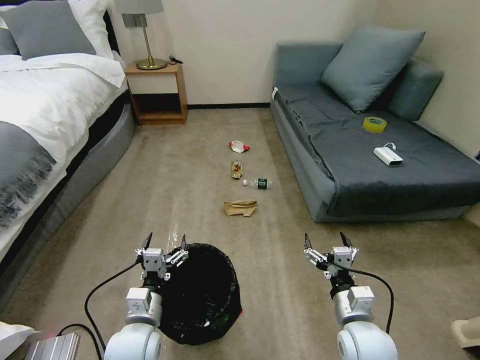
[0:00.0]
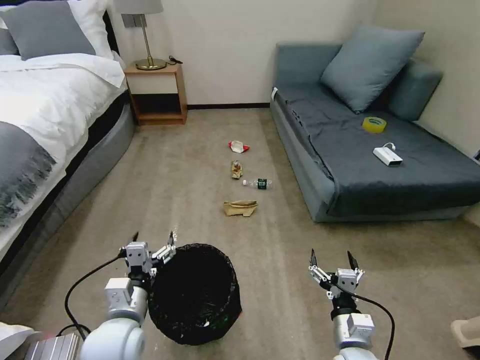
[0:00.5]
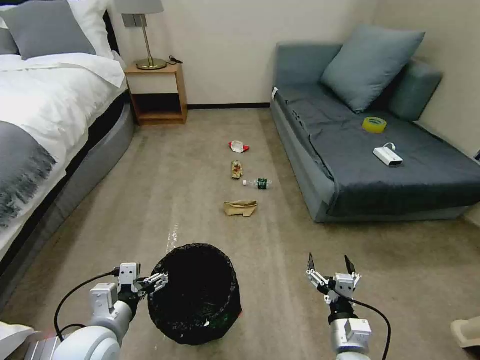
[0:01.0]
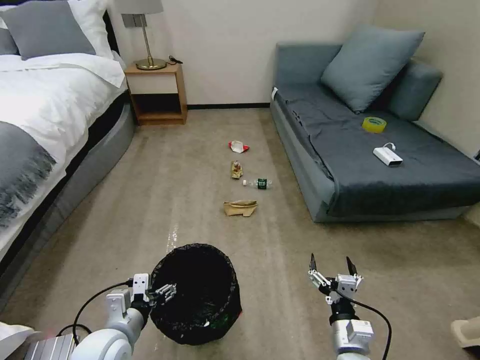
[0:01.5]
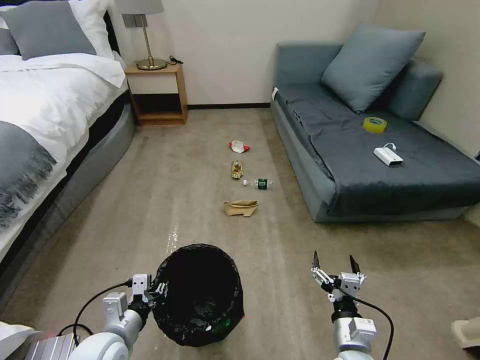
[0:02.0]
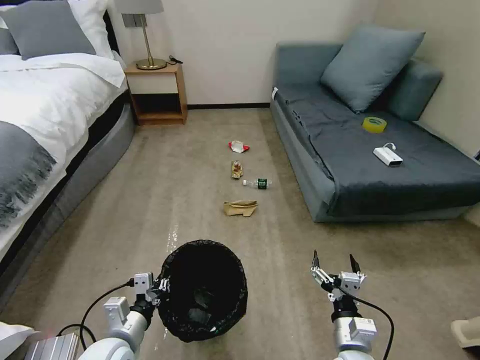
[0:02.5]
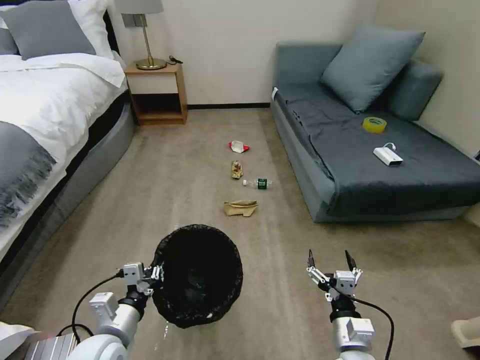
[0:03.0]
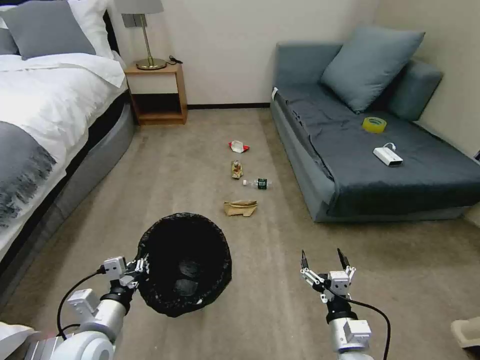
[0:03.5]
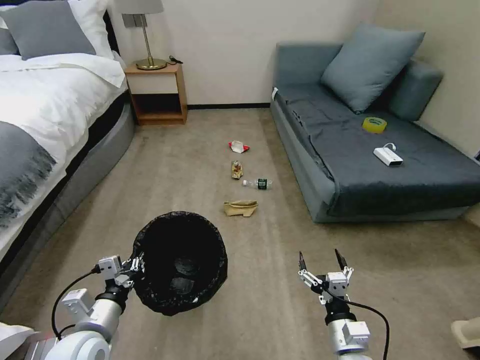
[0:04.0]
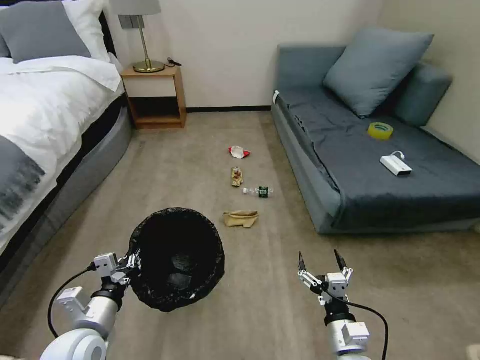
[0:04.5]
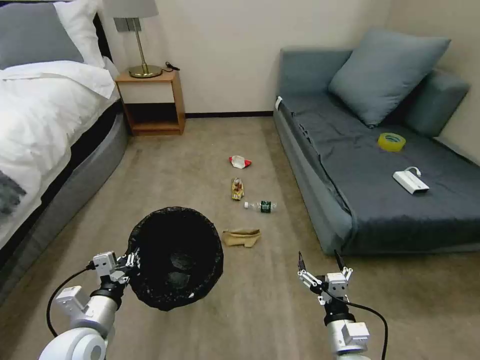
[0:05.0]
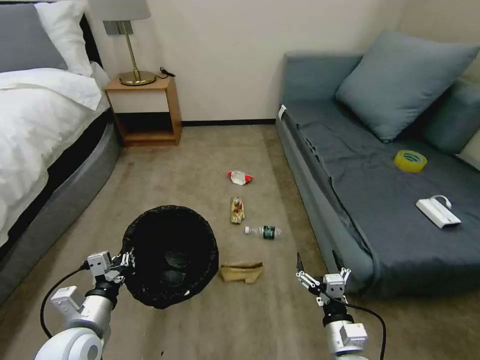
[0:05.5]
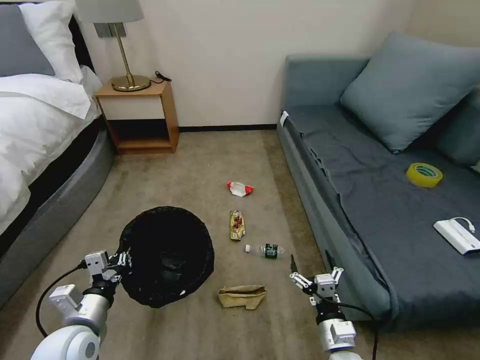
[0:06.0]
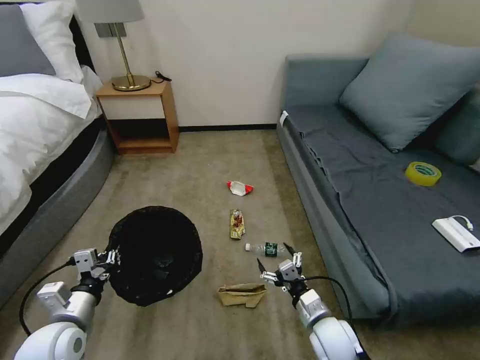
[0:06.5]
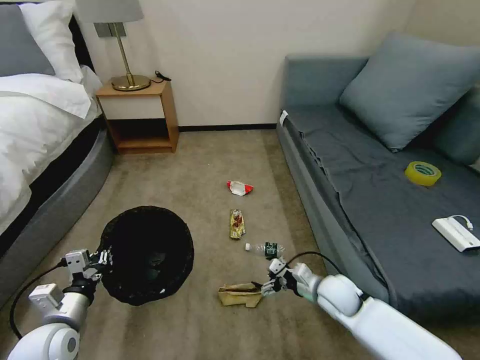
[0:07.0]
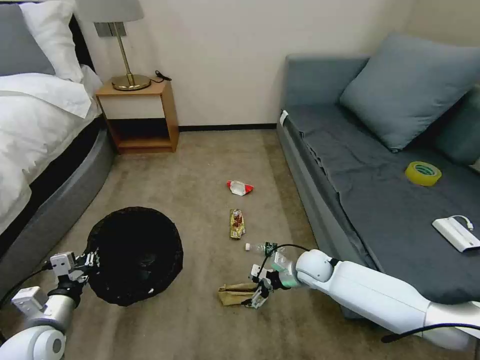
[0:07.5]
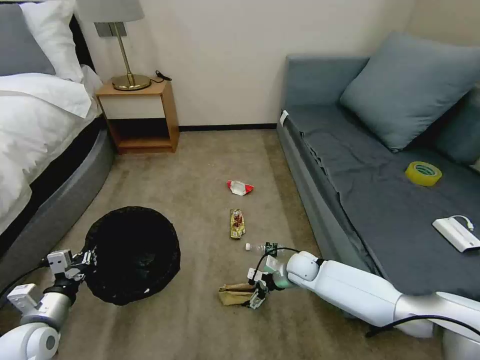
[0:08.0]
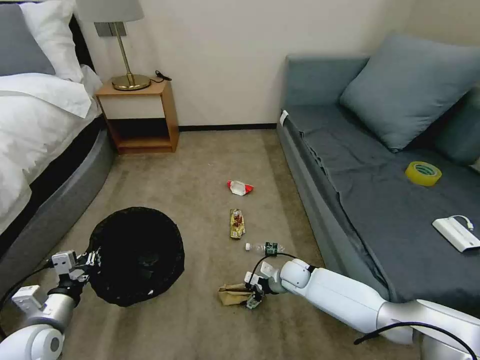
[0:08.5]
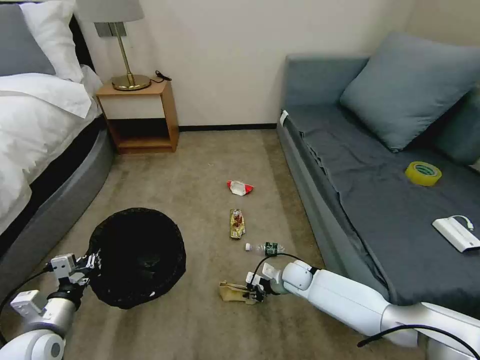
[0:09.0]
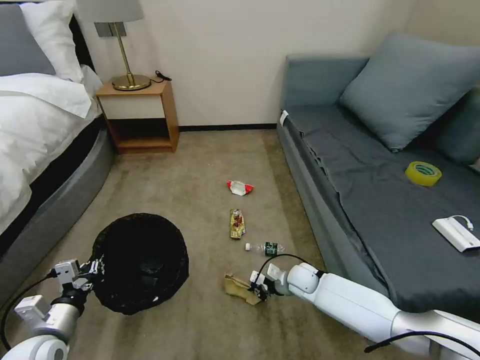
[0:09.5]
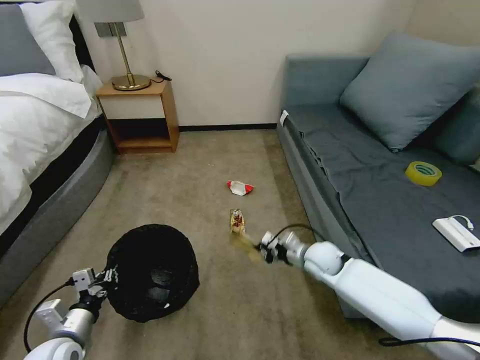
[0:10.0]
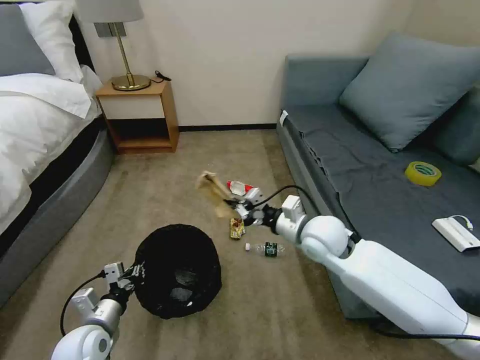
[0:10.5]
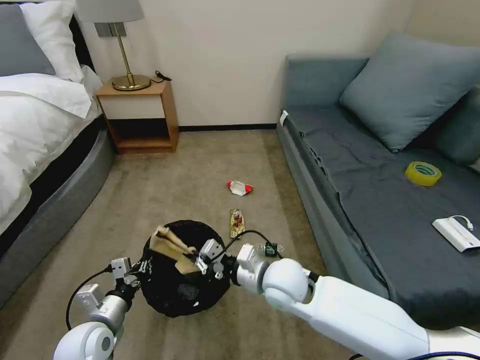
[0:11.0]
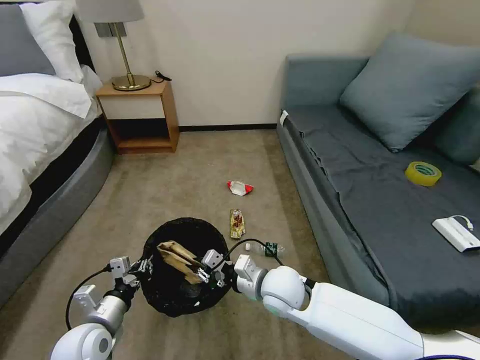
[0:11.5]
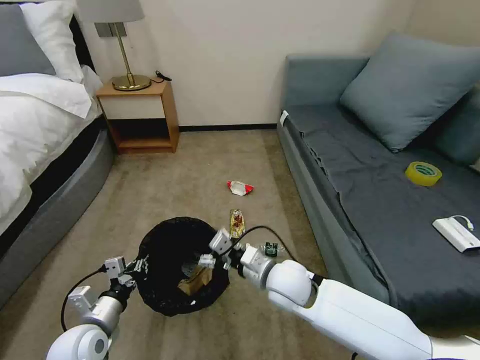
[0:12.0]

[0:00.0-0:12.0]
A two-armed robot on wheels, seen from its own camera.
Task of the whole recording: Pick up the trash bin, then pick up the garbage on the floor and place it into the trash bin.
0:06.0 to 0:08.0: The left gripper heads to the left, covering some 10 cm. The right gripper goes roughly 25 cm forward.
0:08.0 to 0:10.0: The right gripper is displaced upward by roughly 5 cm, and closes. The left gripper shifts by some 5 cm.
0:10.0 to 0:12.0: The right gripper goes about 20 cm to the left, backward and upward, and opens its fingers; the left gripper heads to the right, covering approximately 5 cm.

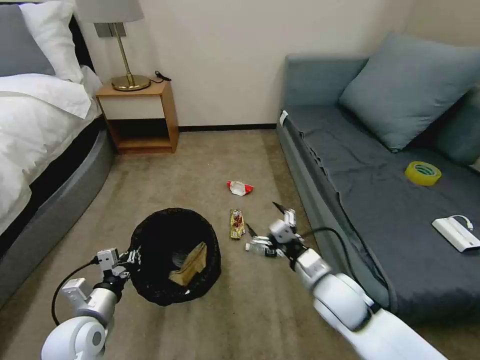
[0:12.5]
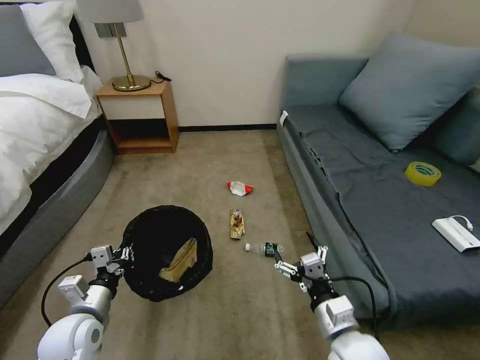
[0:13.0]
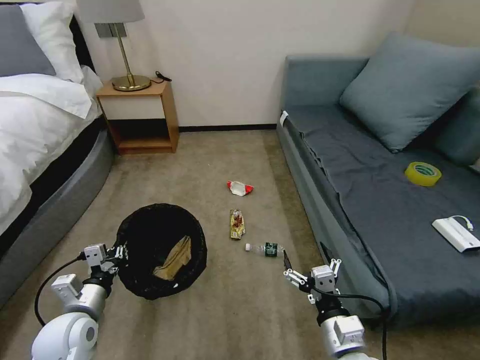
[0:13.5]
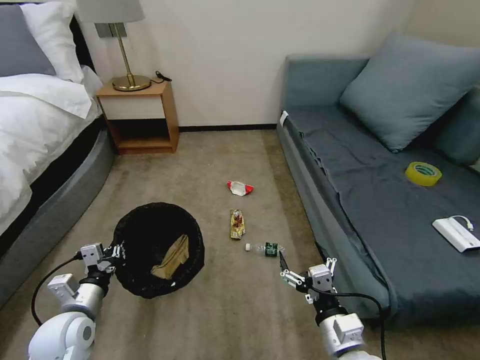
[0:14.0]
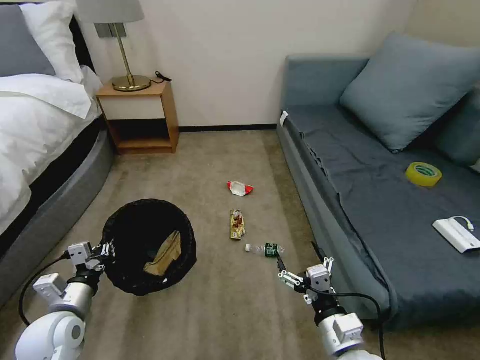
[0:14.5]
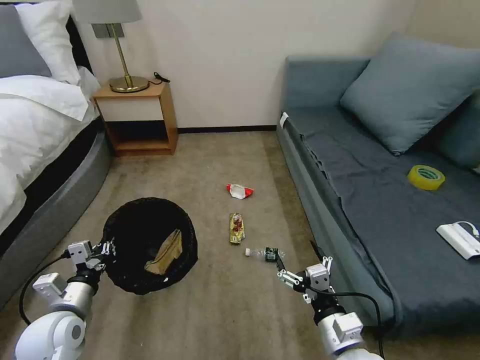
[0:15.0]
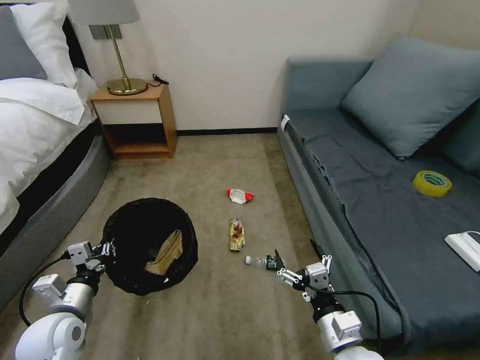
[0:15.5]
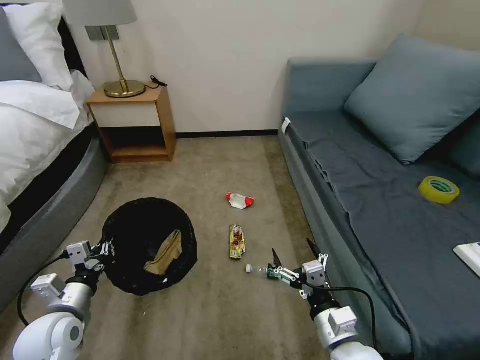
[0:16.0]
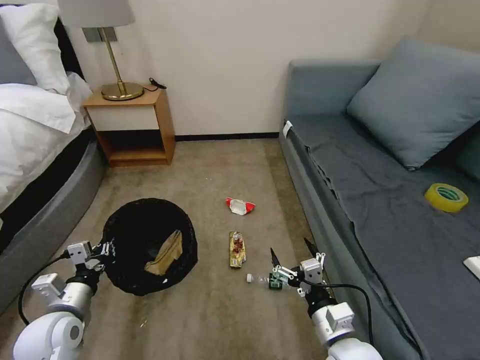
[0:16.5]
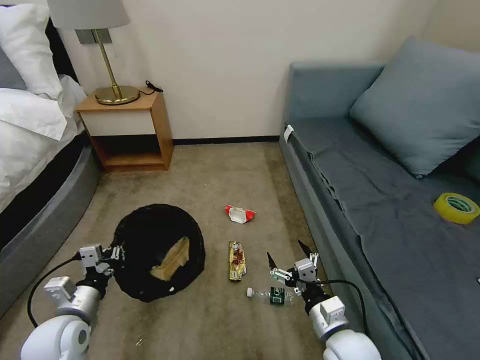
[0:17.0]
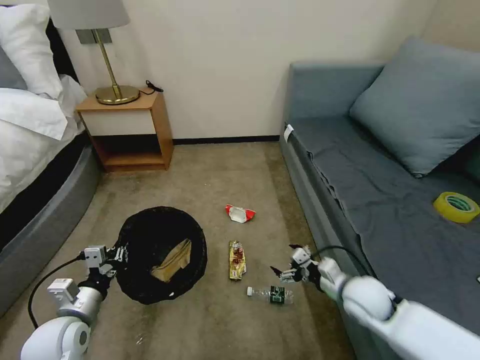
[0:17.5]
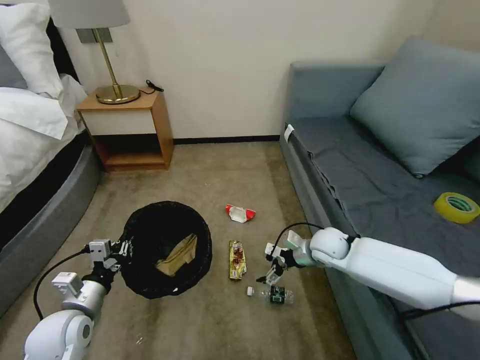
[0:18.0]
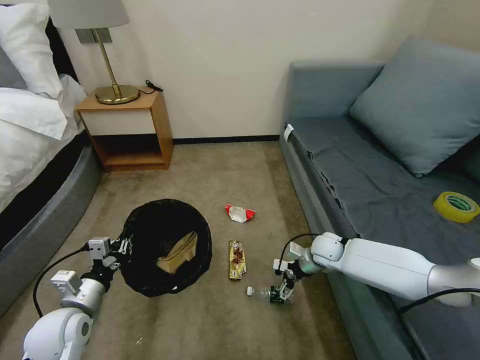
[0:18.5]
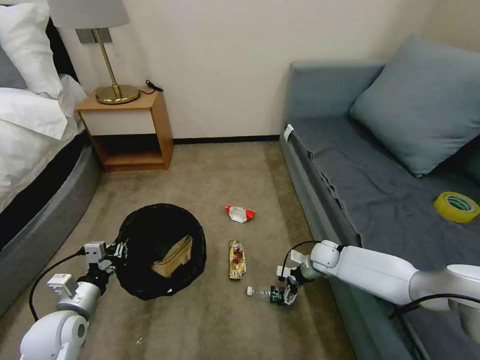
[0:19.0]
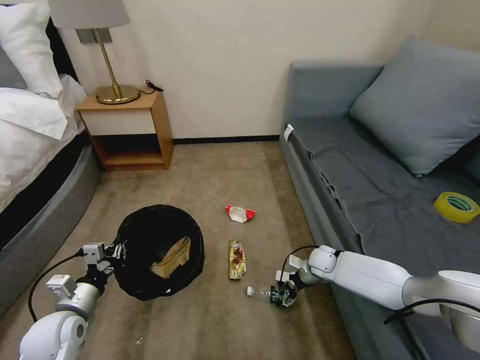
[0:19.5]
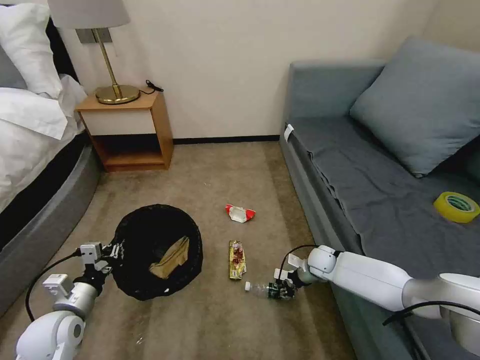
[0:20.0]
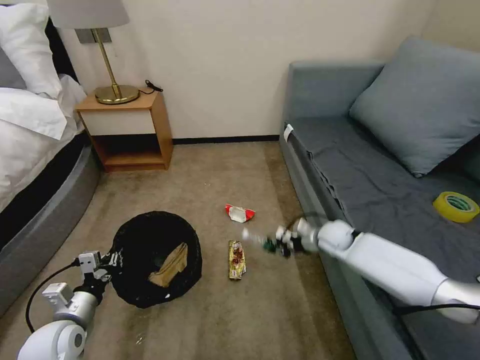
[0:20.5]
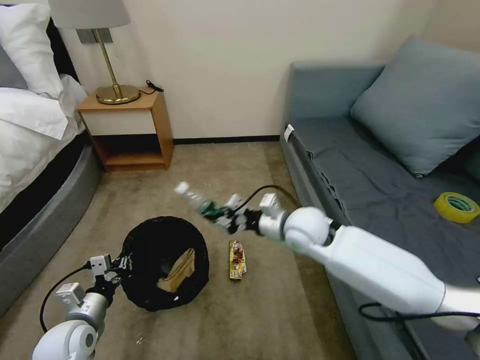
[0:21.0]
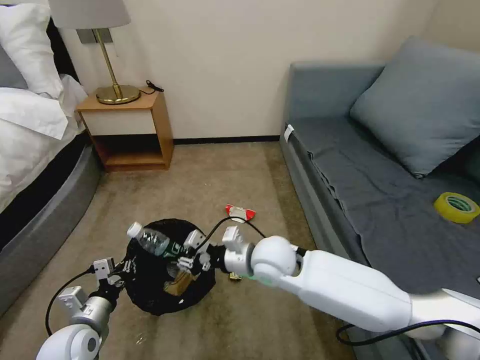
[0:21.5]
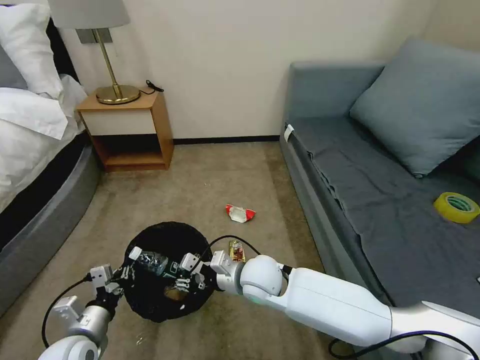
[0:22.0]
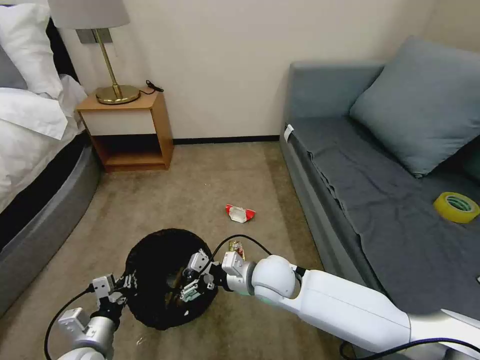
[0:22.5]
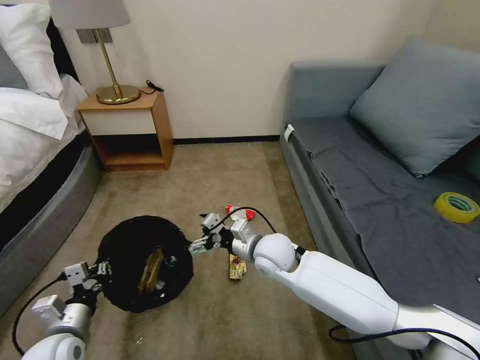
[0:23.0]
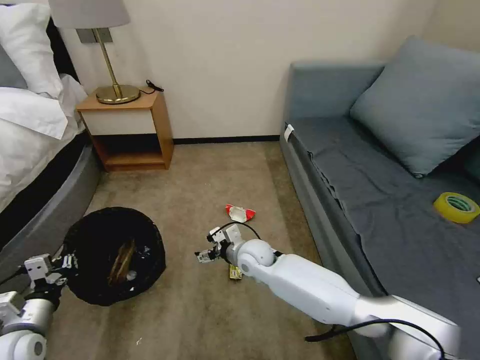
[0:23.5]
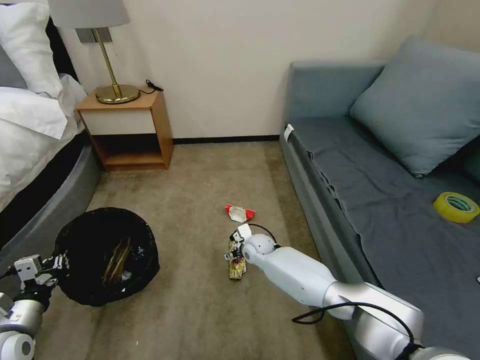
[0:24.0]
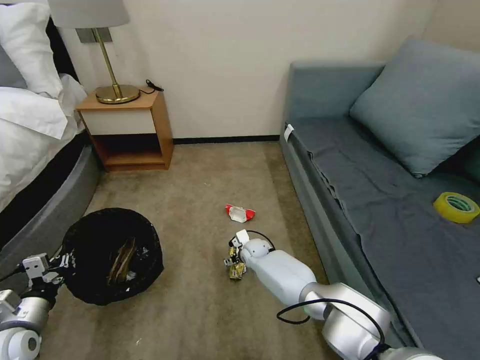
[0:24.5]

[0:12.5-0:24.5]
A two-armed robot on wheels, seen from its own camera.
Task of the whole recording: Pick up the trash bin, then pick up the garbage on the floor and place it into the trash bin.
0:12.5 to 0:14.5: The right gripper shifts about 15 cm backward.
0:16.5 to 0:18.5: The right gripper is displaced forward by some 30 cm.
0:18.5 to 0:20.5: The right gripper goes downward and returns, roughly 10 cm each way, and closes.
0:20.5 to 0:22.5: The right gripper moves to the left and backward, about 25 cm, and opens, while the left gripper is displaced to the right by roughly 5 cm.
0:22.5 to 0:24.5: The left gripper shifts some 15 cm to the left; the right gripper goes some 25 cm downward and forward.

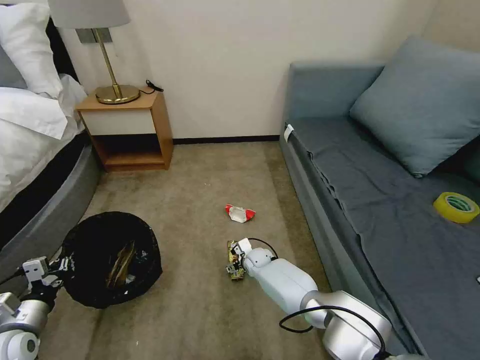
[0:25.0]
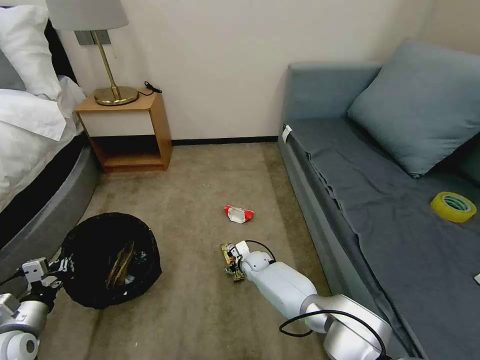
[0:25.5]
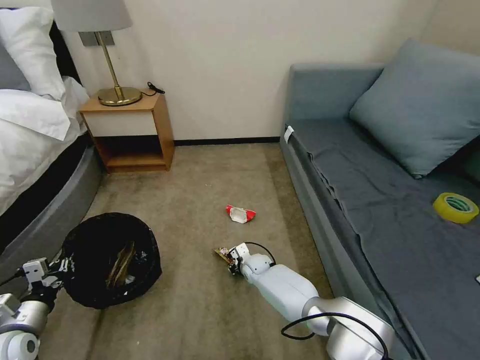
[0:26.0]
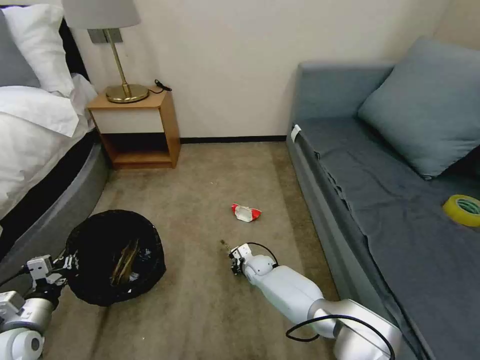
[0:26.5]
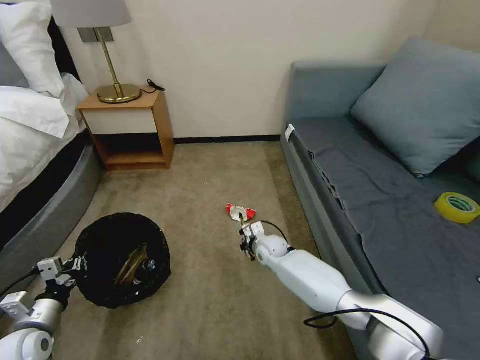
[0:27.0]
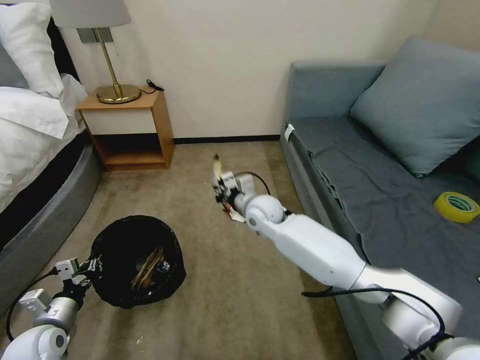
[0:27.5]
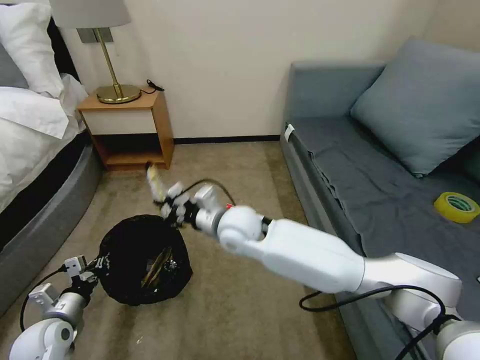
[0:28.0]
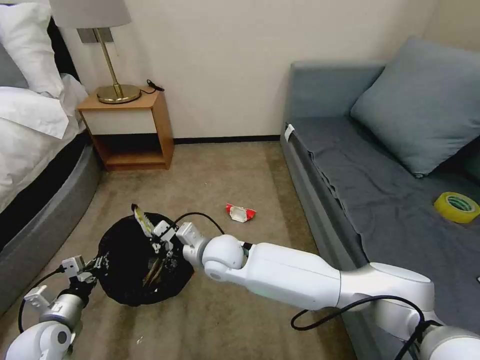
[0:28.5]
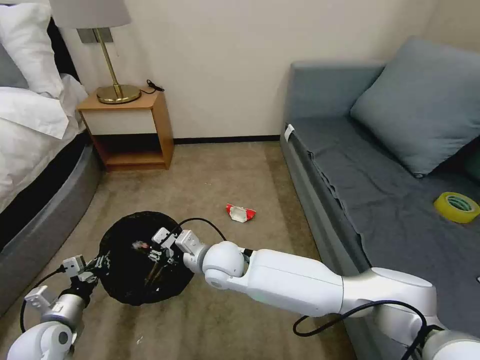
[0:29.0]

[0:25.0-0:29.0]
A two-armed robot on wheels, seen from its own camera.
Task of the whole recording: Pick up the trash bin, then pick up the garbage on the floor and place it into the trash bin.
0:25.0 to 0:27.0: The right gripper shifts roughly 5 cm upward, and closes up.
0:27.0 to 0:29.0: The right gripper heads upward, to the left and backward, covering some 25 cm, and opens up.
